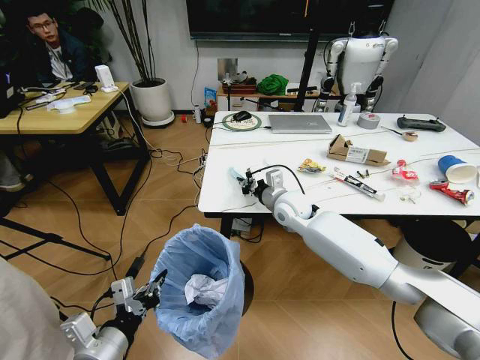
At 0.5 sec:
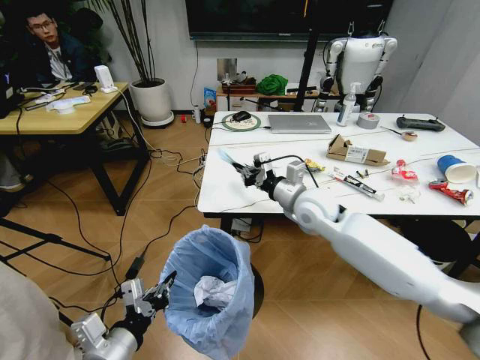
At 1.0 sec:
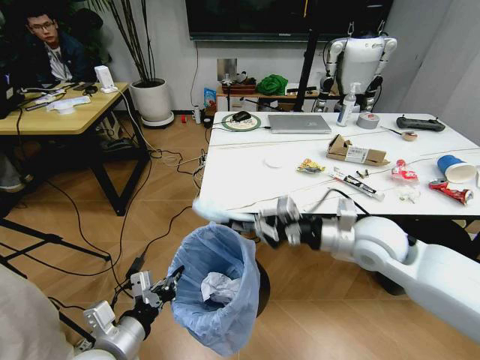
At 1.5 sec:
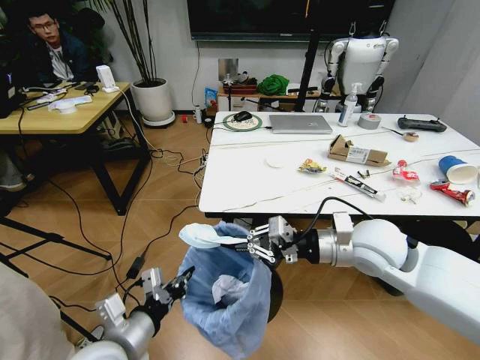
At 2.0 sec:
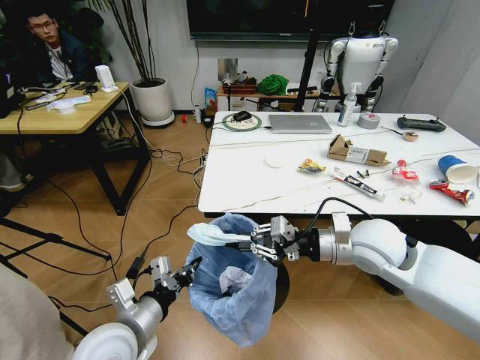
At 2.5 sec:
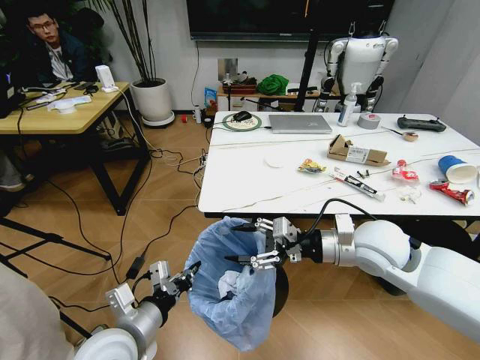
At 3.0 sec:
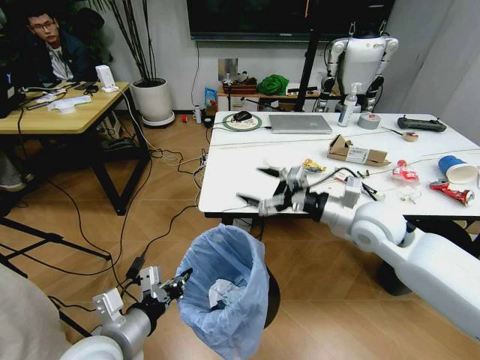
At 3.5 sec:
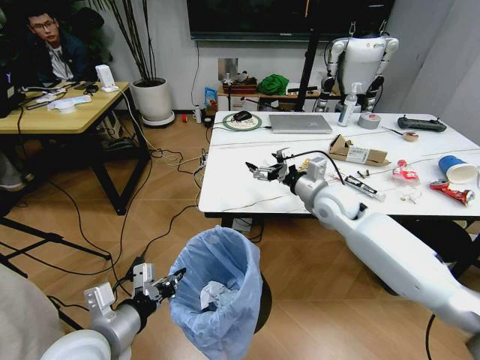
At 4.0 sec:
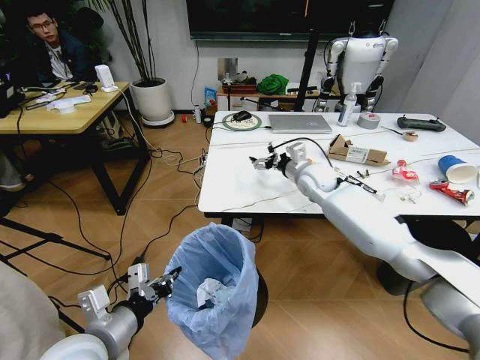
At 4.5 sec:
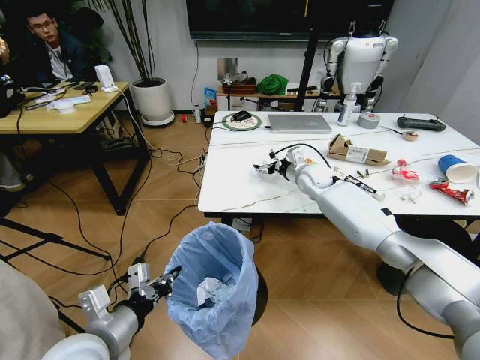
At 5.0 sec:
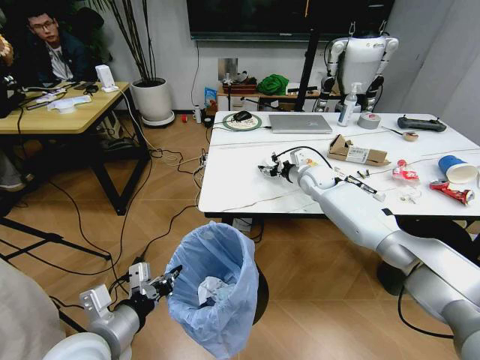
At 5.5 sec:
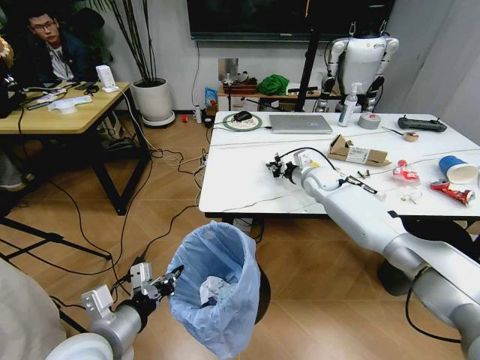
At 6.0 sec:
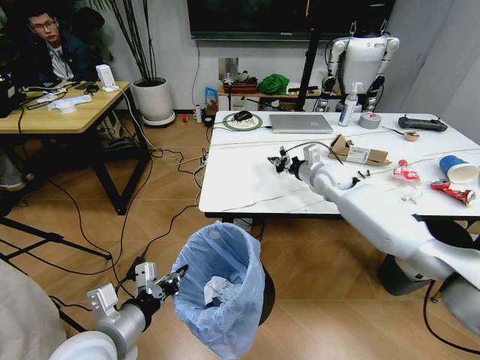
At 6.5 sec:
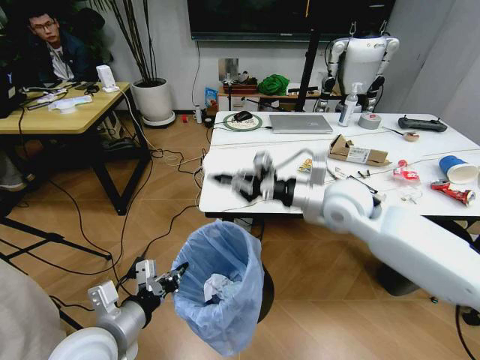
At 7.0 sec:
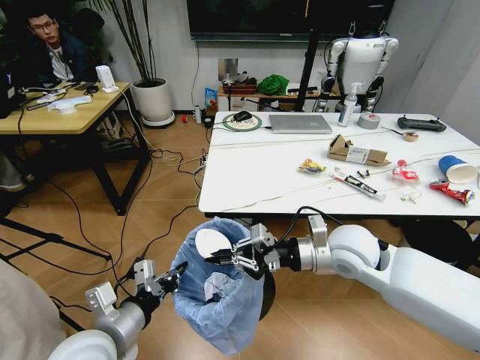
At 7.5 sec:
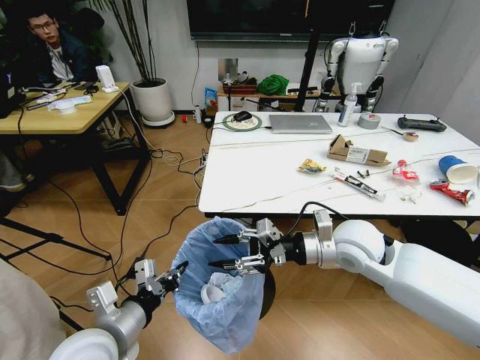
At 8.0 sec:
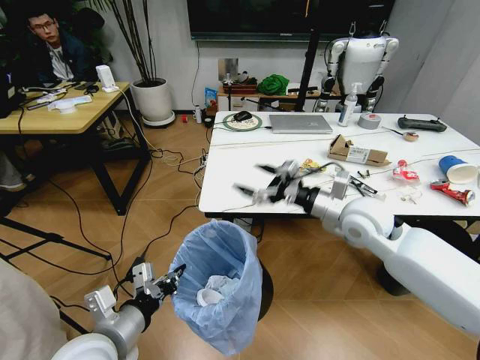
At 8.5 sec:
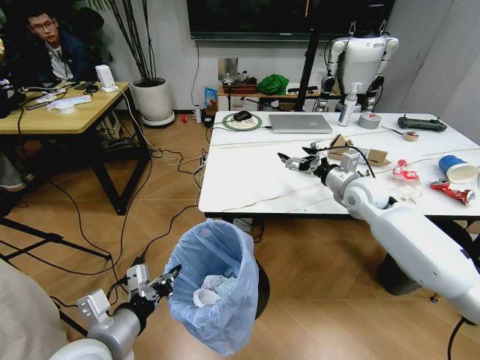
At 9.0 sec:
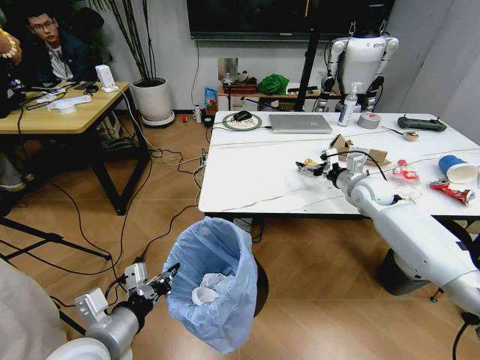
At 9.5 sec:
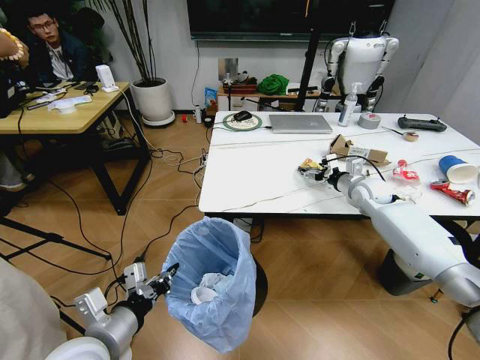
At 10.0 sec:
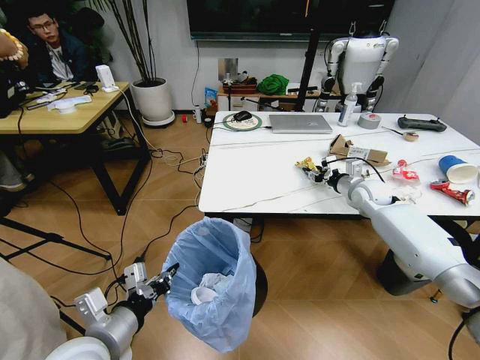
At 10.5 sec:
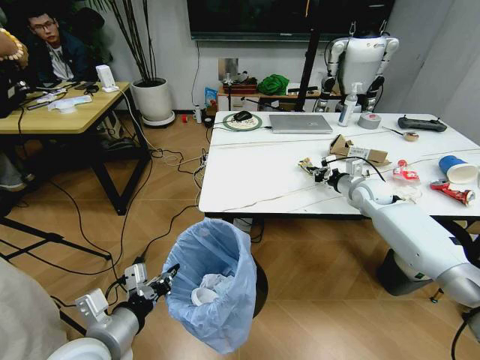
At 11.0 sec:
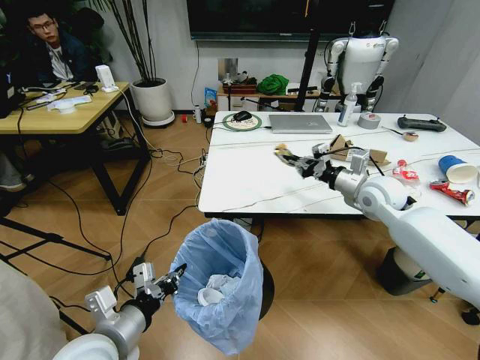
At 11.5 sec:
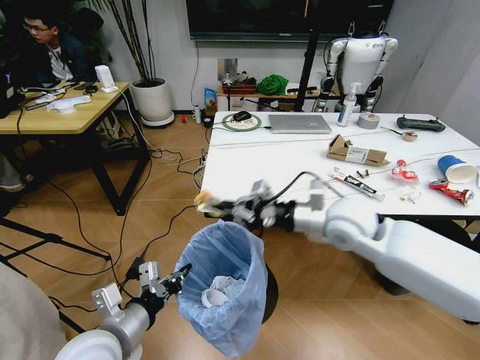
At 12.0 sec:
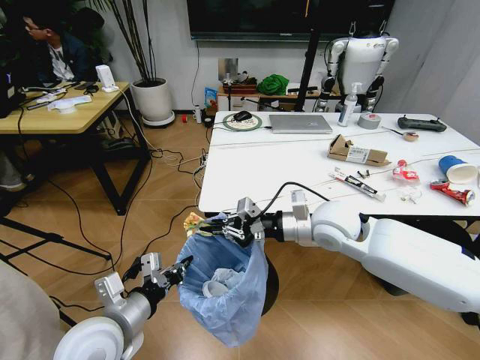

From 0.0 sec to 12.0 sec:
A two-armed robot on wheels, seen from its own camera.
Task of the whole recording: Pick up the trash bin and place the trash from the table into it.
From 0.0 sec to 2.0 sec: The right gripper is displaced backward, to the right and upward by approximately 20 cm. Meanwhile the left gripper moves forward, some 5 cm.
From 2.0 sec to 4.0 sec: The right gripper is displaced forward by approximately 25 cm, and opens up.
From 4.0 sec to 6.0 sec: The right gripper travels to the right by roughly 5 cm, and closes up.
From 6.0 sec to 8.0 sec: The right gripper moves backward, approximately 20 cm, and opens its fingers.
From 8.0 sec to 10.0 sec: The right gripper shifts roughly 20 cm forward, to the right and downward, and closes its fingers.
From 10.0 sec to 12.0 sec: The right gripper goes some 25 cm to the left, backward and upward.

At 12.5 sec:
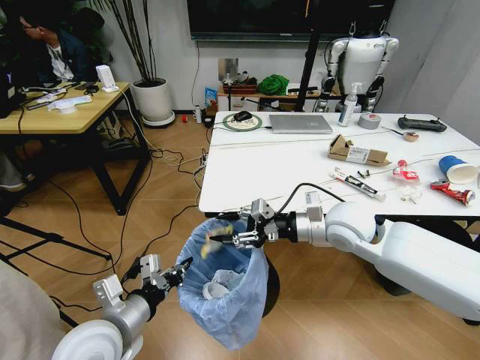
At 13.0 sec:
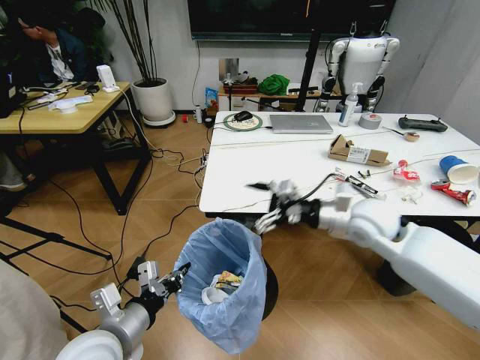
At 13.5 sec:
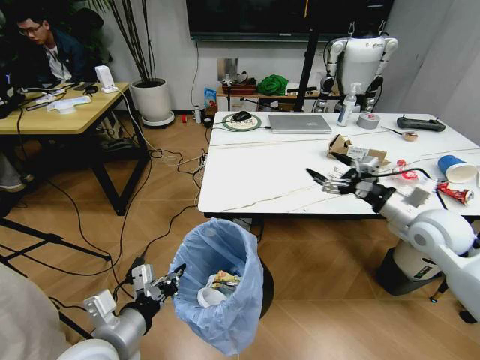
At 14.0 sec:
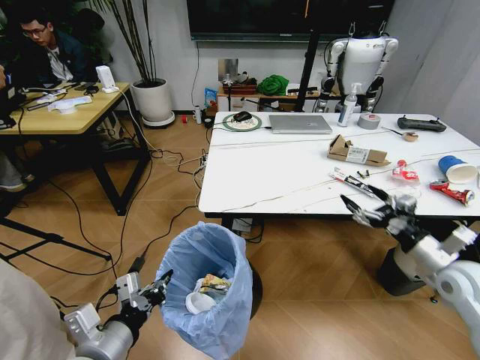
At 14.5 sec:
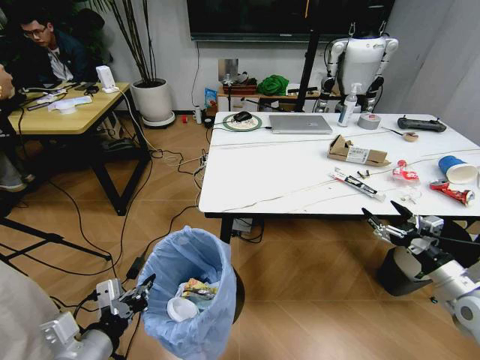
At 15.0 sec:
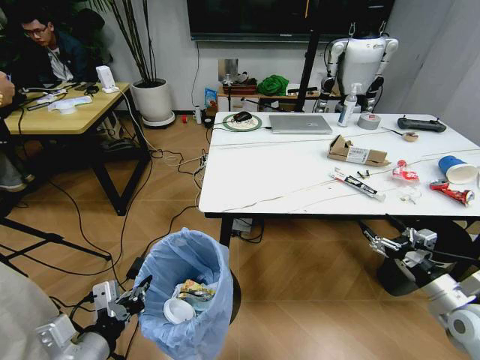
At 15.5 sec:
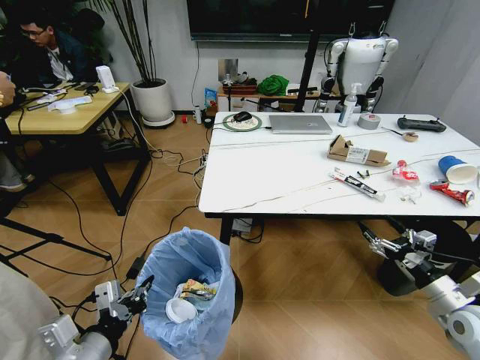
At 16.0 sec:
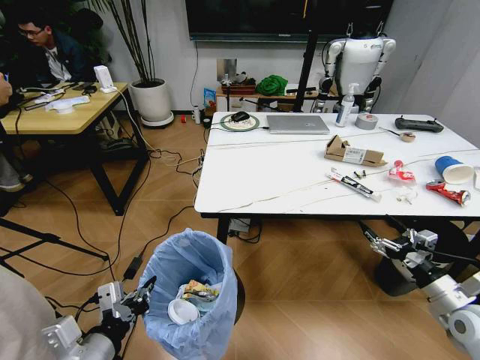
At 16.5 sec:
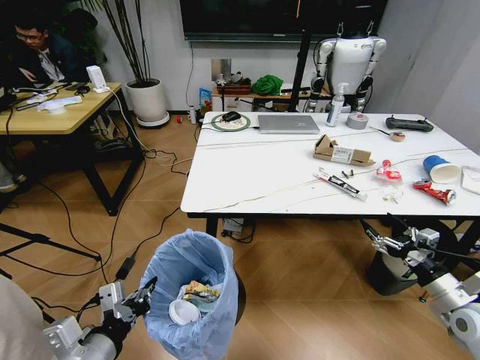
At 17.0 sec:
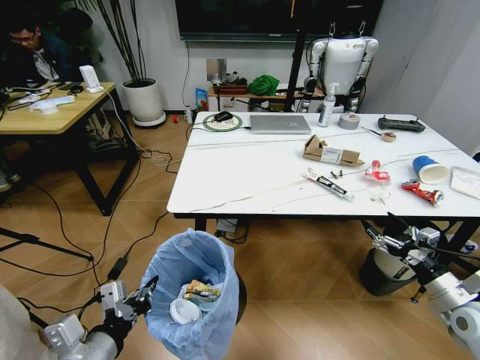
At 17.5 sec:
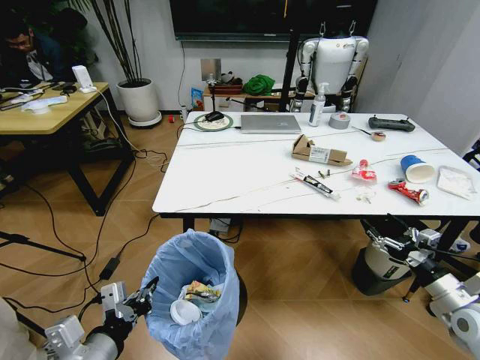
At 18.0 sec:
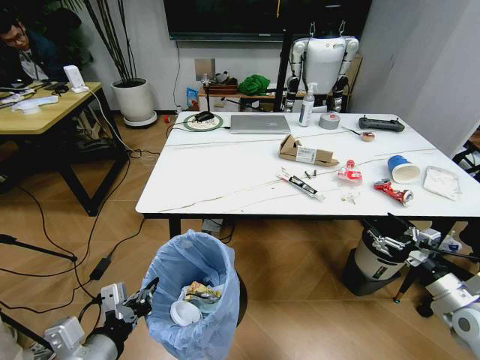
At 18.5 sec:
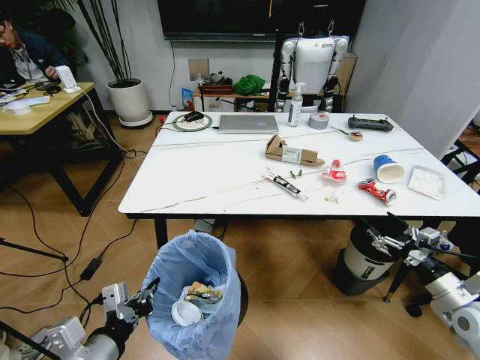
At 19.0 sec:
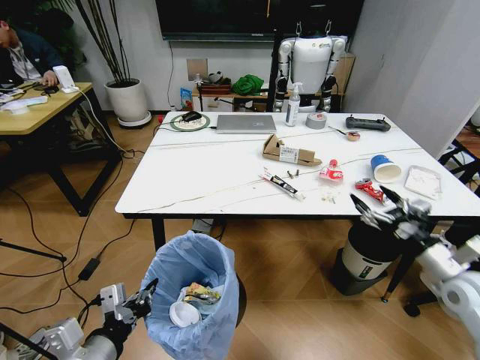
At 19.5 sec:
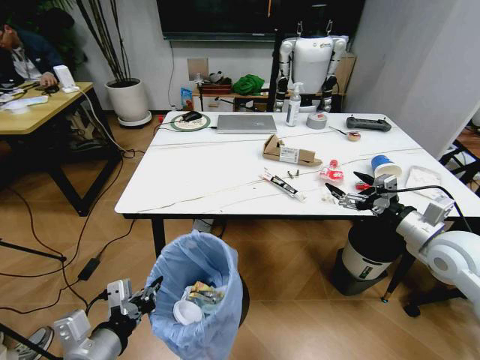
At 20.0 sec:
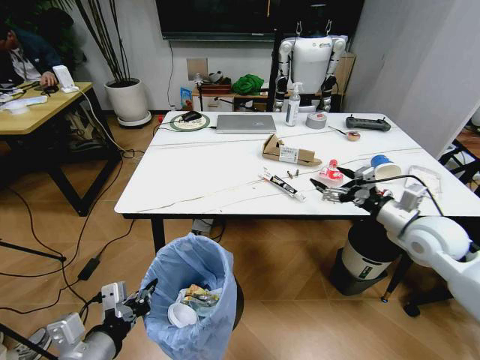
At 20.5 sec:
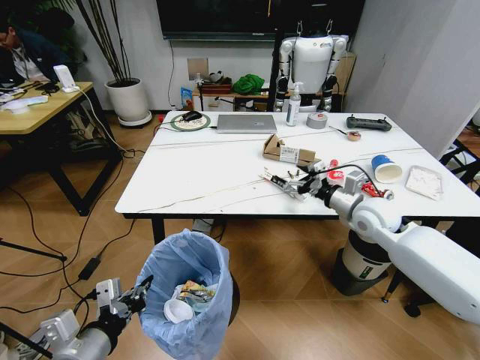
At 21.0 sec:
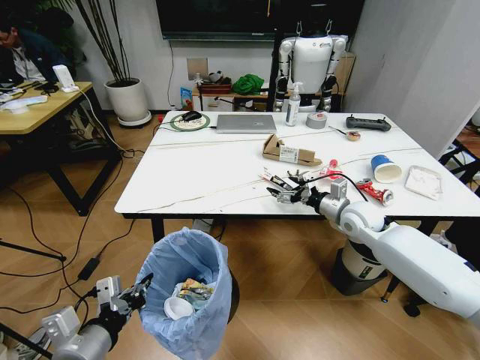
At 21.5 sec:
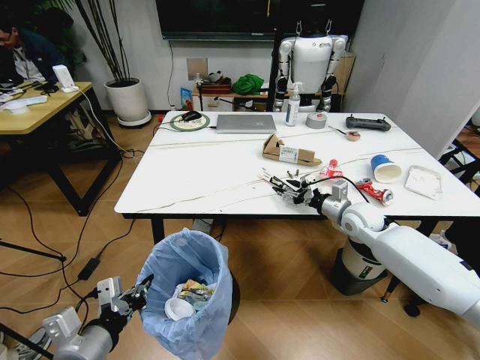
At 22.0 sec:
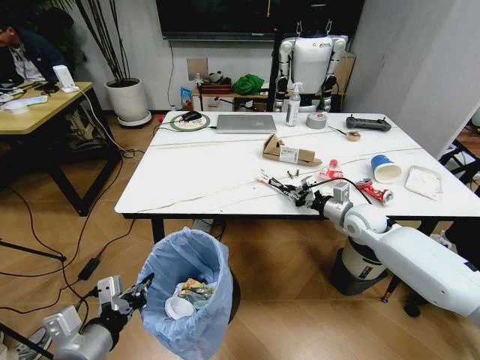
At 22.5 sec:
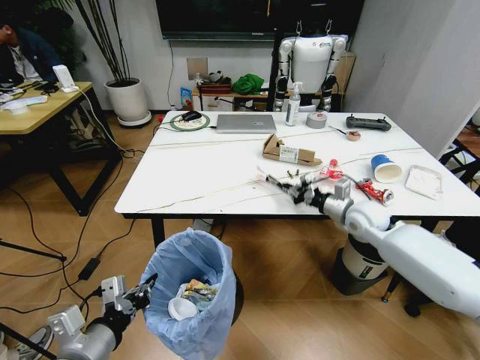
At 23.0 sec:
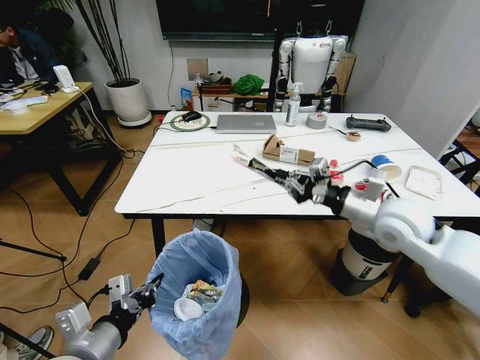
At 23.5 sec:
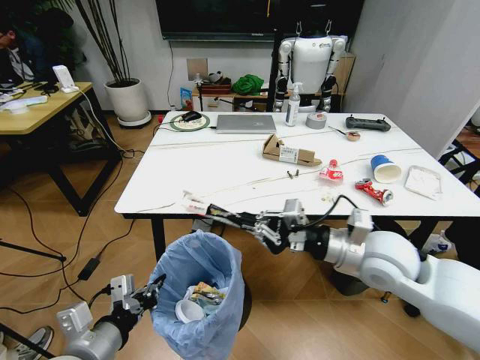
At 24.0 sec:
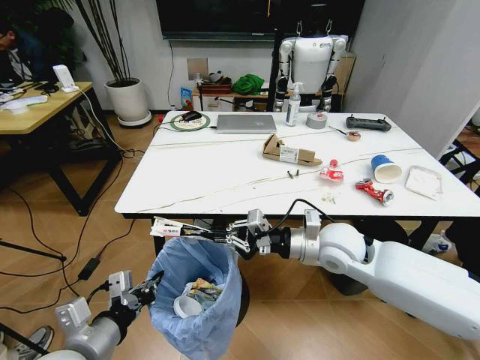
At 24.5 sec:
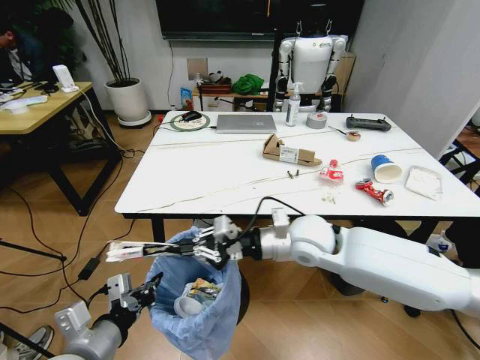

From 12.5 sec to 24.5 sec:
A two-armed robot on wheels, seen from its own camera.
Task of the whole recording: Pick up the trash bin and place the trash from the table into it.
From 12.5 sec to 14.5 sec: The left gripper moves backward, about 5 cm. The right gripper shifts roughly 30 cm to the right and backward, and opens.
From 18.5 sec to 20.5 sec: The right gripper moves forward, to the left and upward, approximately 25 cm.
From 20.5 sec to 22.5 sec: The right gripper moves approximately 5 cm, and closes.
From 22.5 sec to 24.5 sec: The right gripper shifts some 20 cm to the left and backward.

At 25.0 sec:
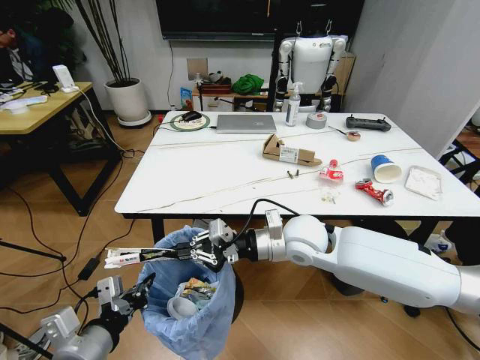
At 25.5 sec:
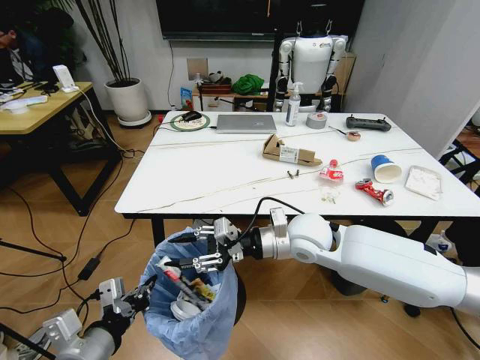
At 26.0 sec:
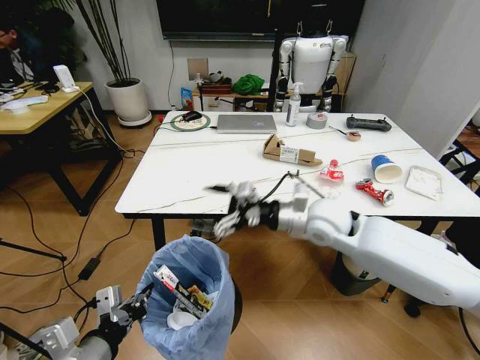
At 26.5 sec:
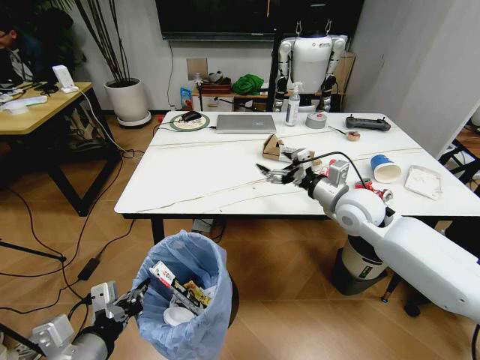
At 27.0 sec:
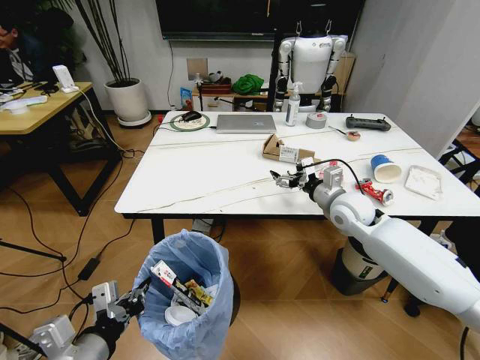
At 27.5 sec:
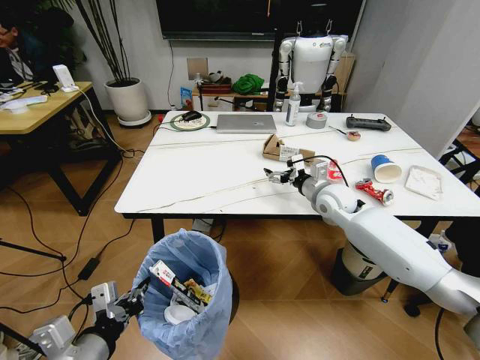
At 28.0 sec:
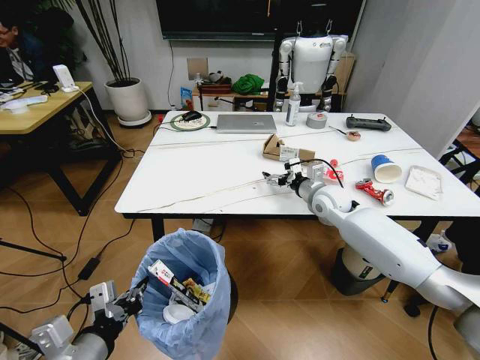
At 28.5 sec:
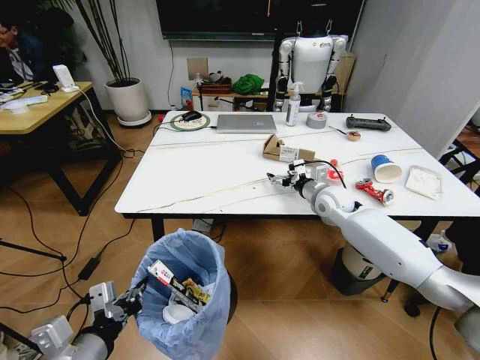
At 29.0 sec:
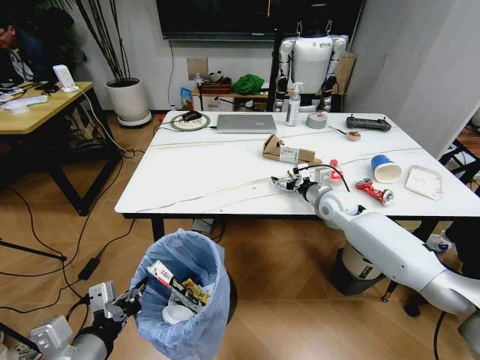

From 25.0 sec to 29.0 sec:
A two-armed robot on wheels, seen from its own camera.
Task of the whole recording: Pick up the trash bin and place the trash from the table into it.
From 25.0 sec to 27.0 sec: The right gripper travels to the right and forward by approximately 15 cm, and opens its fingers.
From 27.0 sec to 29.0 sec: The right gripper goes roughly 5 cm forward.
